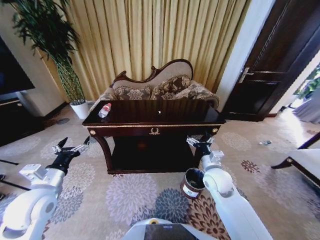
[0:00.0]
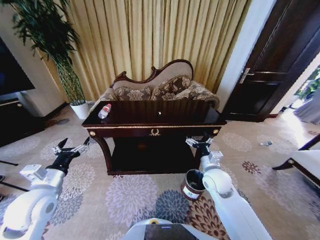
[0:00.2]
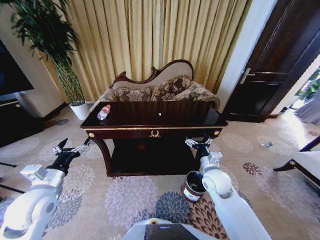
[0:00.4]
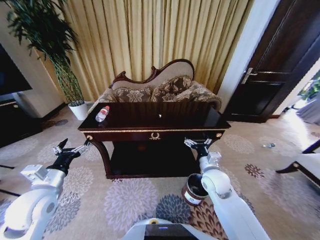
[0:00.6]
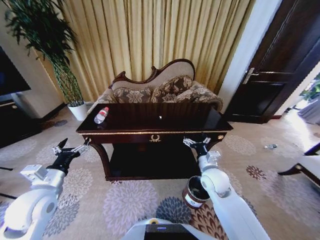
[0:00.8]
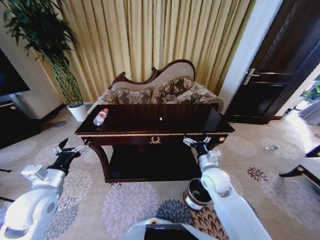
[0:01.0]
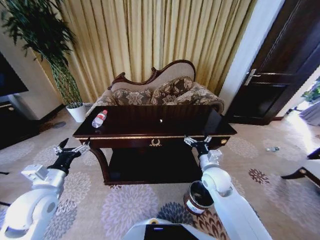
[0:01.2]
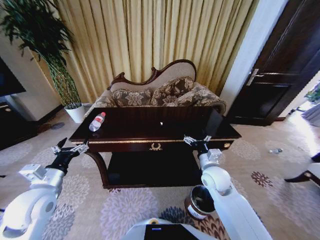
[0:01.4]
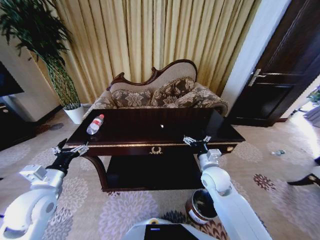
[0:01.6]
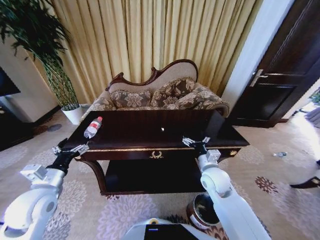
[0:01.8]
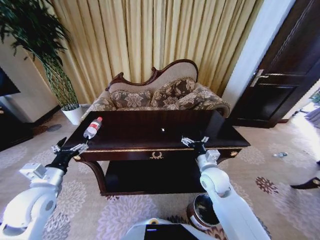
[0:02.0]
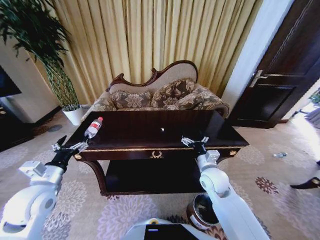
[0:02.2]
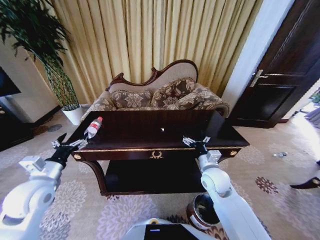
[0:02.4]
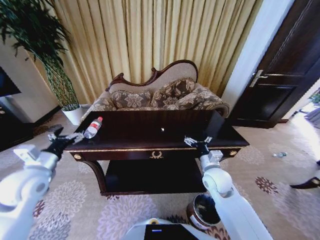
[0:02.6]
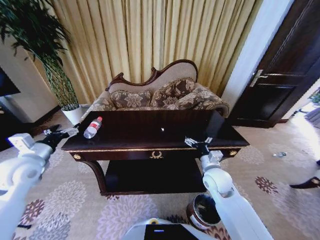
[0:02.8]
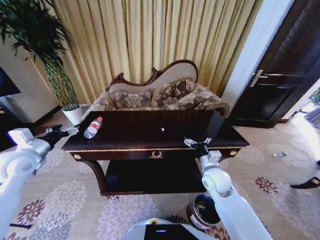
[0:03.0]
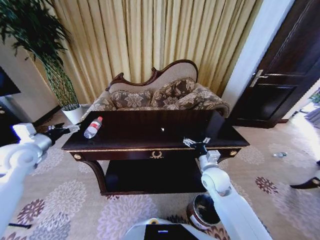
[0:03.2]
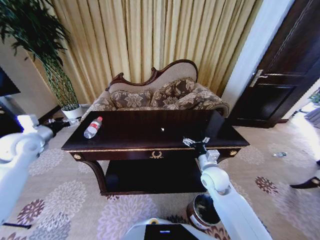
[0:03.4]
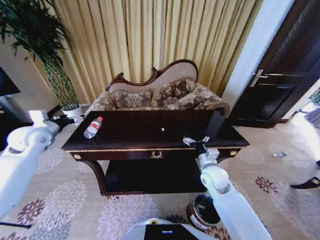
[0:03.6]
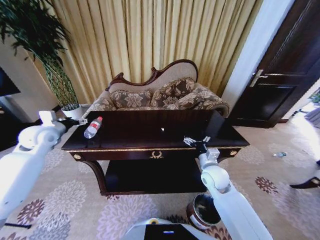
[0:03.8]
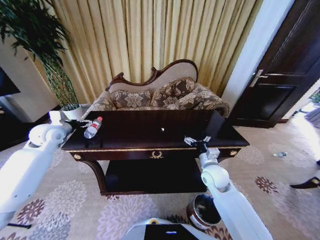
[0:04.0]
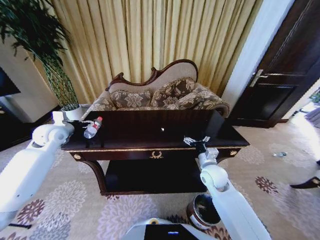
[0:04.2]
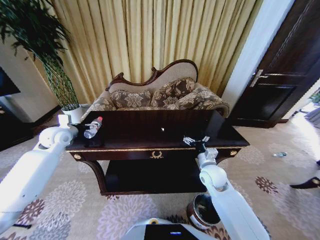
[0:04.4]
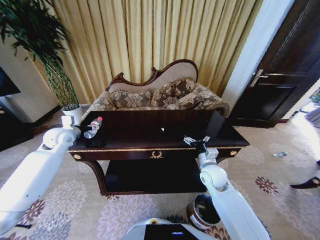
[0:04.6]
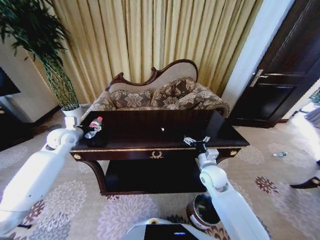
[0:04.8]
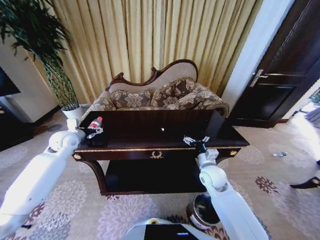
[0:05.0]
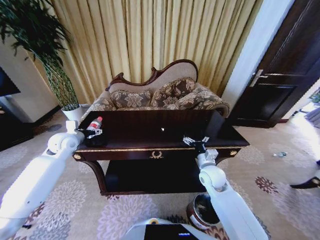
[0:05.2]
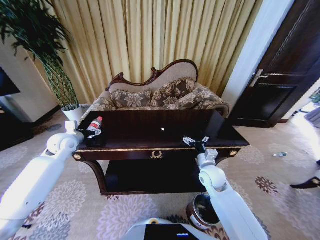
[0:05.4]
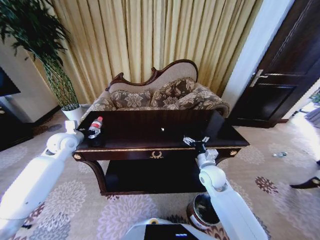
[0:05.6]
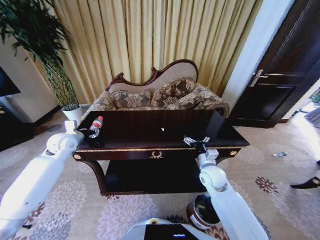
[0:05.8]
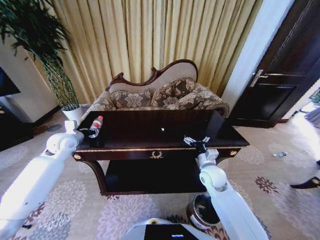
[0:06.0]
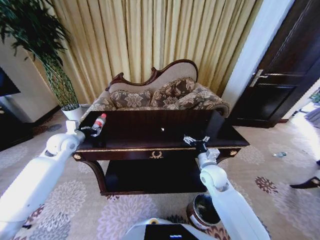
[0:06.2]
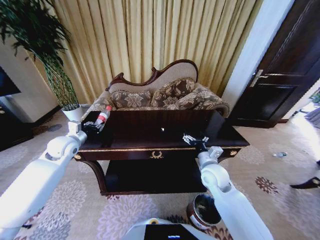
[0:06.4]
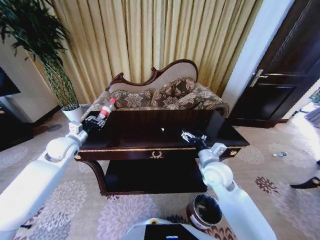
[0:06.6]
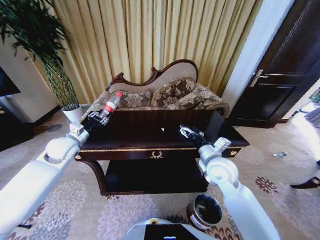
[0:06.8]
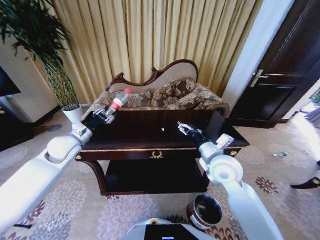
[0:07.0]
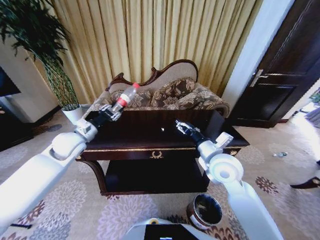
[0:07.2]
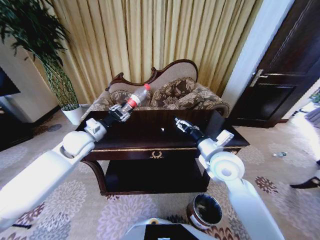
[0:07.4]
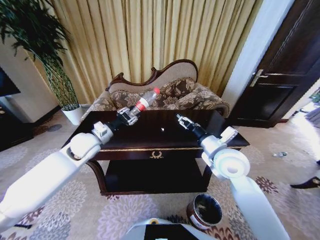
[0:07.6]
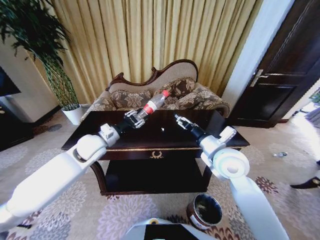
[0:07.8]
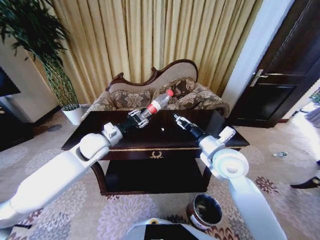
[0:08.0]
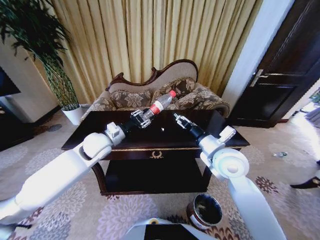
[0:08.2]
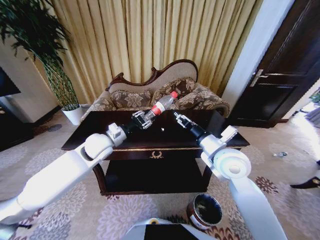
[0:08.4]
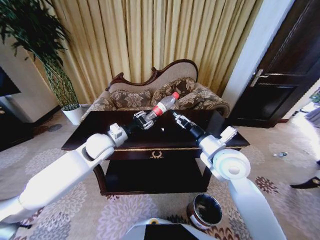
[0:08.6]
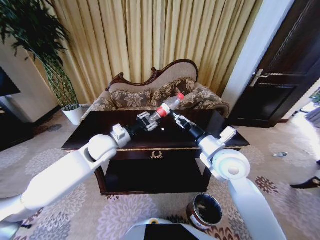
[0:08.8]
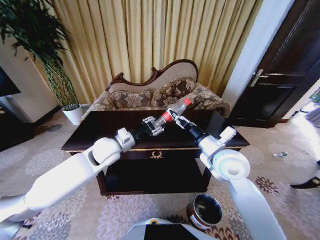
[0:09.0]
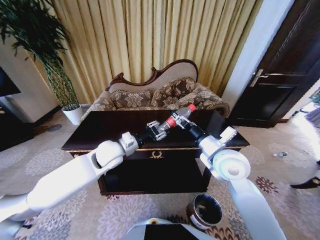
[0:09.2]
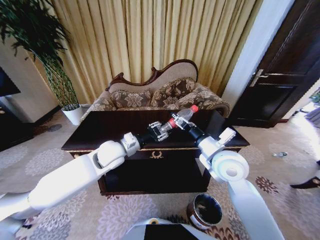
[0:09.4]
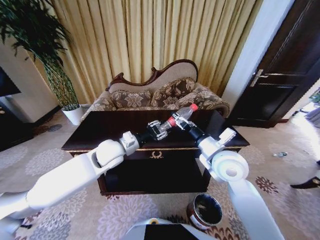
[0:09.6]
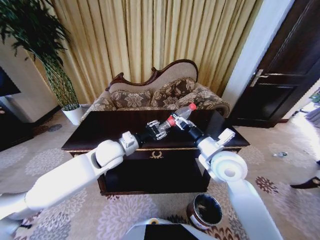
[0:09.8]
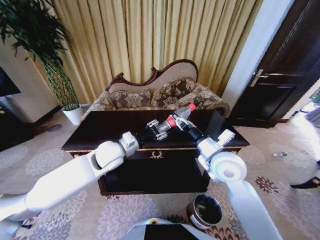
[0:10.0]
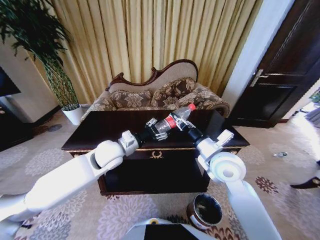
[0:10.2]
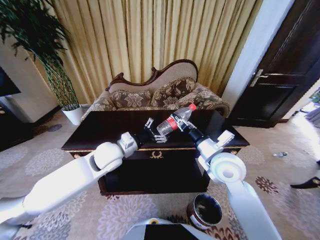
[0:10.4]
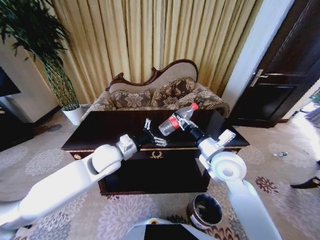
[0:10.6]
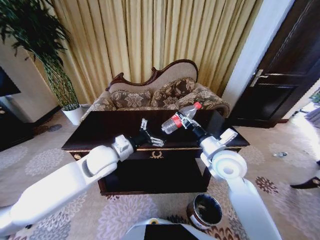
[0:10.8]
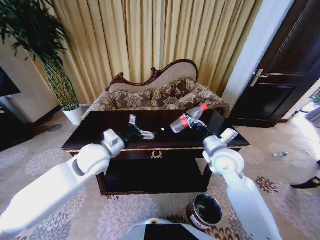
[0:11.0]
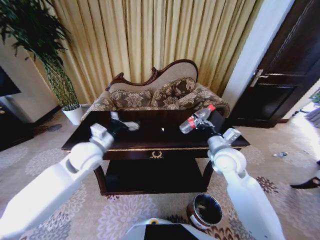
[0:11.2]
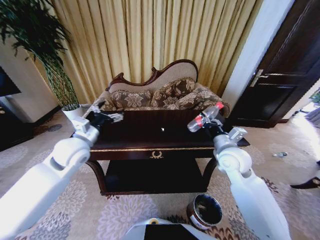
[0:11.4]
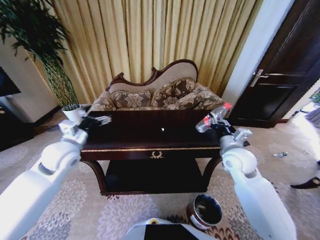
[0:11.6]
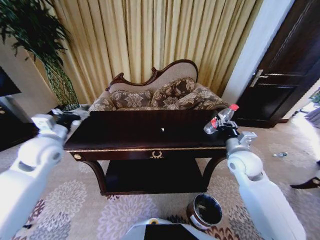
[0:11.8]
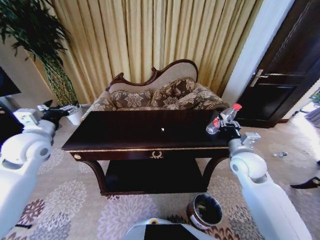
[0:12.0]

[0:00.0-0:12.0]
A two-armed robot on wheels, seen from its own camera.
Task of the whole recording: Move to the front of the table and place the trash on the table into the trash bin.
0:01.6 to 0:03.0: The left gripper is displaced forward, to the left and upward by roughly 15 cm.
0:03.0 to 0:04.4: The left gripper travels forward by some 15 cm.
0:04.4 to 0:06.0: The left gripper closes.
0:06.0 to 0:07.6: The left gripper travels to the right by about 10 cm. Meanwhile the right gripper travels upward by roughly 15 cm.
0:07.6 to 0:09.0: The left gripper shifts roughly 10 cm to the right.
0:09.0 to 0:10.4: The left gripper opens up. Meanwhile the right gripper closes its fingers.
0:10.4 to 0:12.0: The left gripper shifts approximately 20 cm to the left, while the right gripper shifts roughly 10 cm to the right.

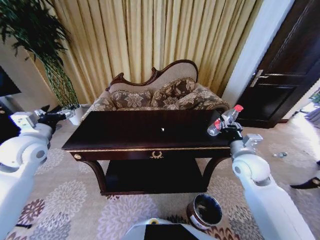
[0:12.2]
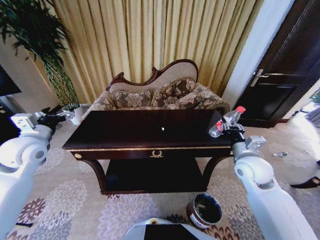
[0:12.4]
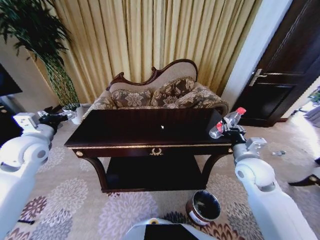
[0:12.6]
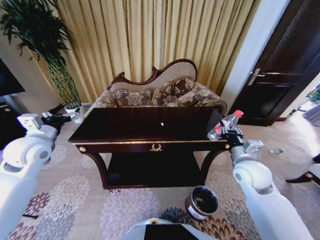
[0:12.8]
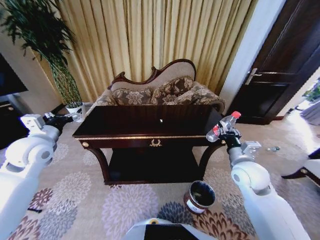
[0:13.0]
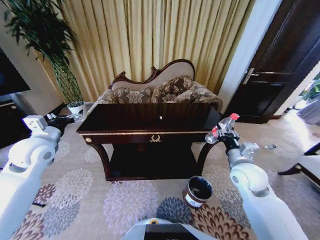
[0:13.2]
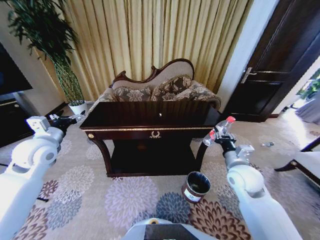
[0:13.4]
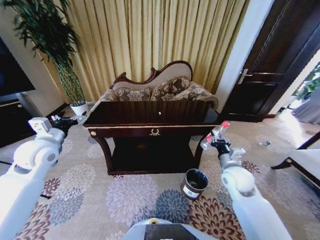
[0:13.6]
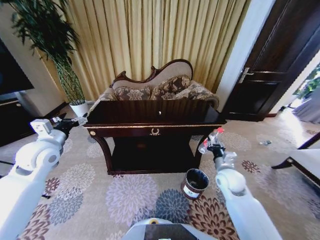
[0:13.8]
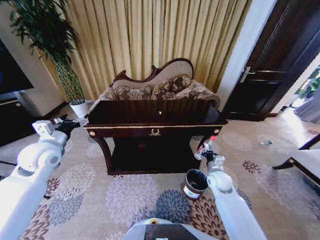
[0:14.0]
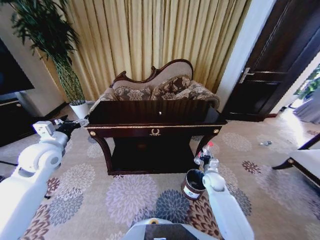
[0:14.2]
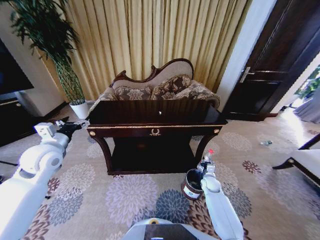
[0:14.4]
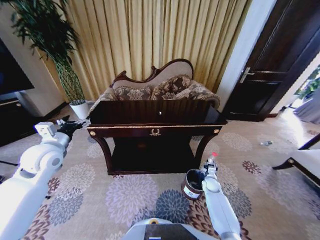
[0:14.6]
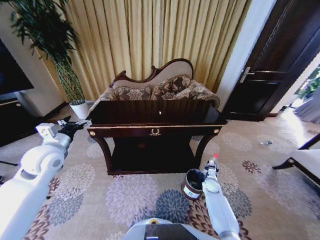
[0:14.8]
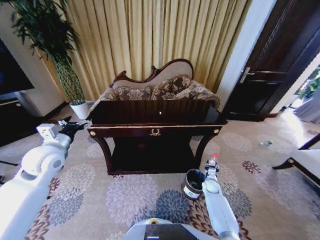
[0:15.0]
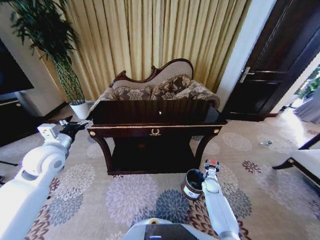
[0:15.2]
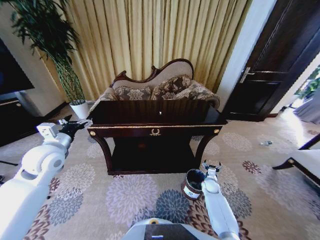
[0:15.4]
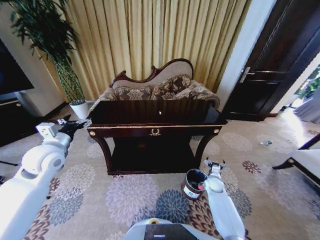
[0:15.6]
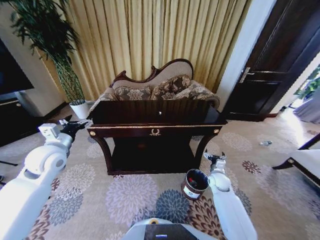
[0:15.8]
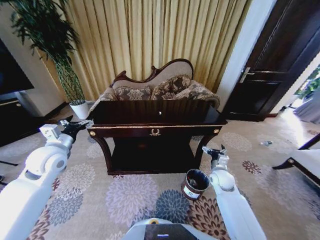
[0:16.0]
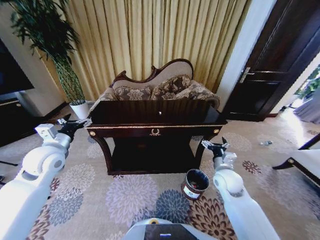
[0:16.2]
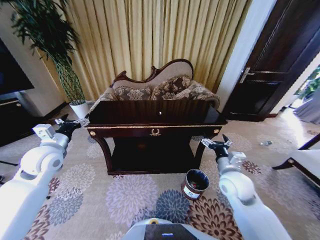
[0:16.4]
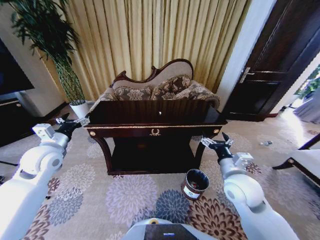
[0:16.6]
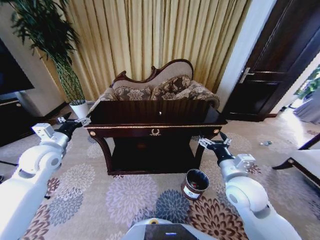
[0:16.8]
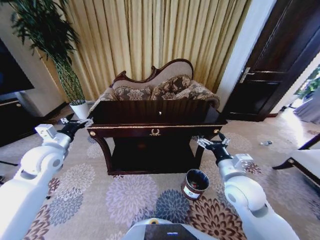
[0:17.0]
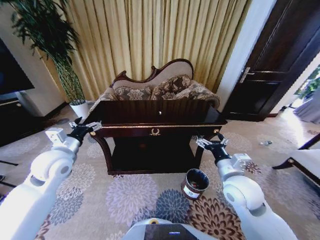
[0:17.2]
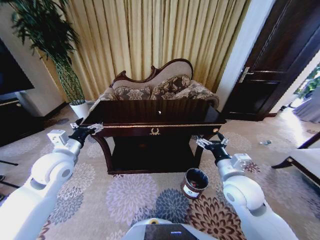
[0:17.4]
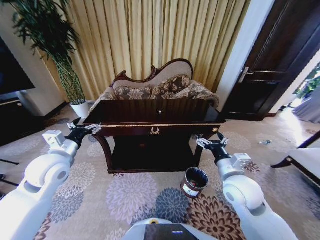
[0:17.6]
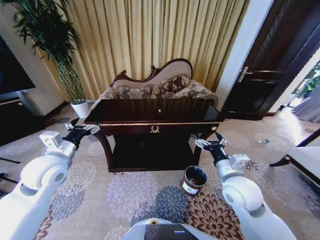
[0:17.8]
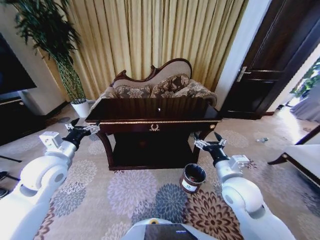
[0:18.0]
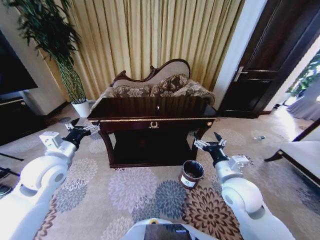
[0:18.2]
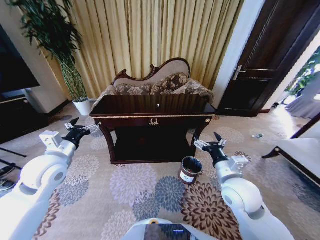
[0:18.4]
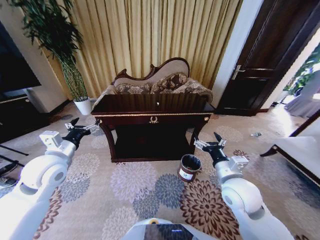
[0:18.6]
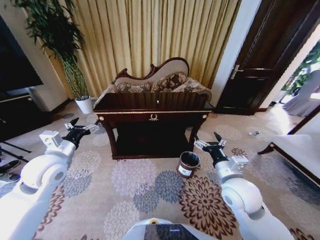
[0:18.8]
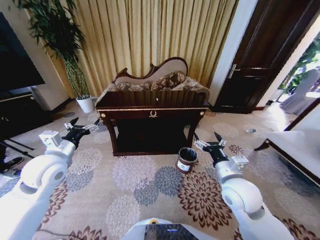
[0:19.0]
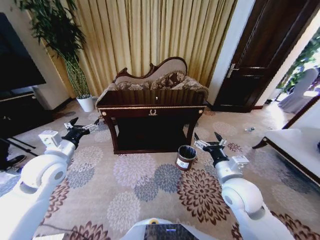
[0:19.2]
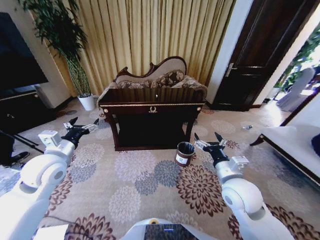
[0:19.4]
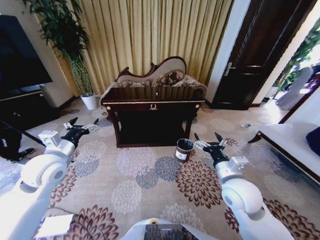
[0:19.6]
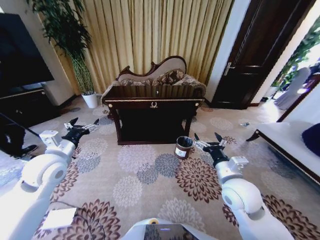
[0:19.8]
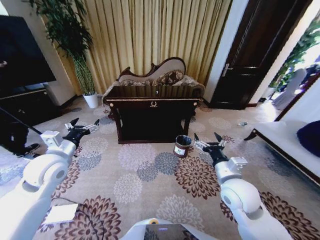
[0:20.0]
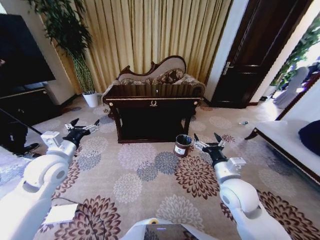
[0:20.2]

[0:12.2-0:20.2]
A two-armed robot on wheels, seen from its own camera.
Task of the whole recording: Move to the front of the table and place the trash on the table into the trash bin.
0:12.2 to 0:13.8: The right gripper heads downward, covering approximately 10 cm.
0:13.8 to 0:15.4: The right gripper shifts approximately 25 cm downward, and opens up.
0:15.4 to 0:17.0: The right gripper shifts about 35 cm upward.
0:17.0 to 0:18.6: The left gripper shifts by some 5 cm.
